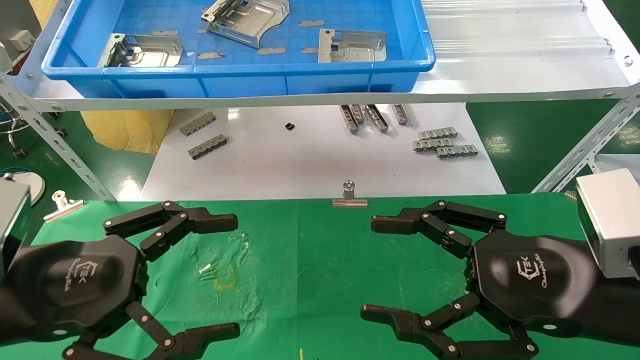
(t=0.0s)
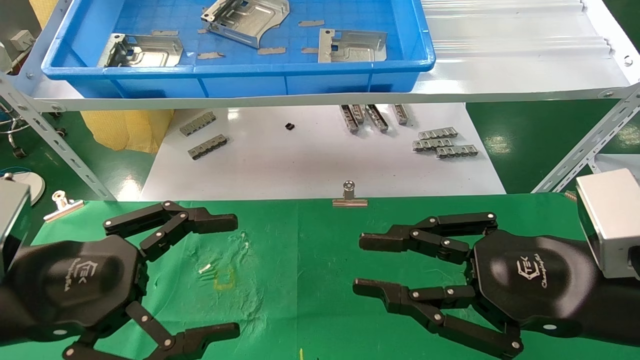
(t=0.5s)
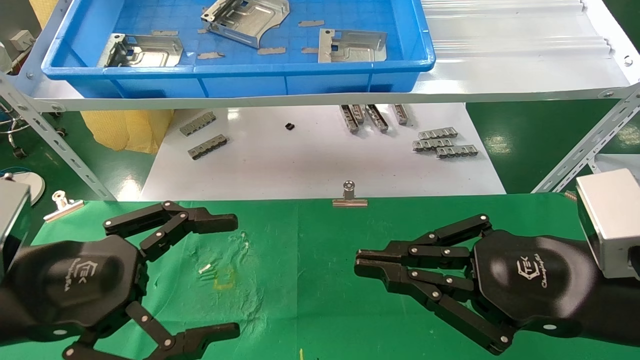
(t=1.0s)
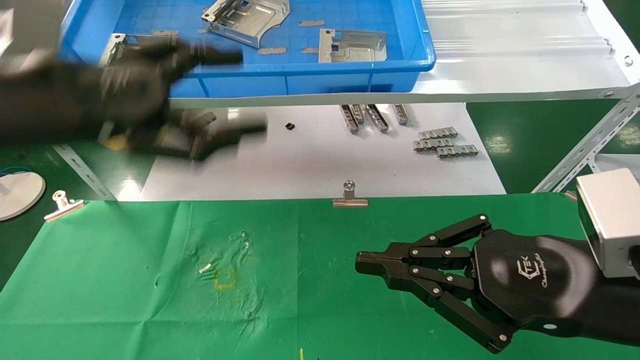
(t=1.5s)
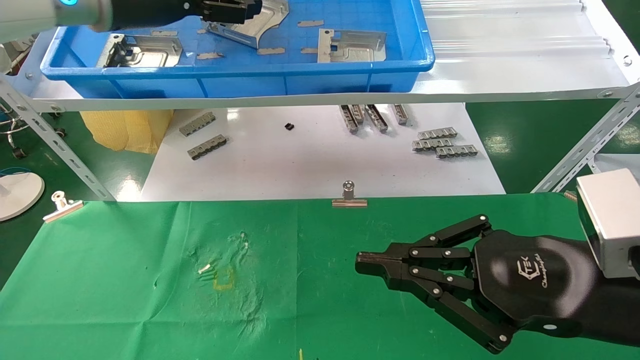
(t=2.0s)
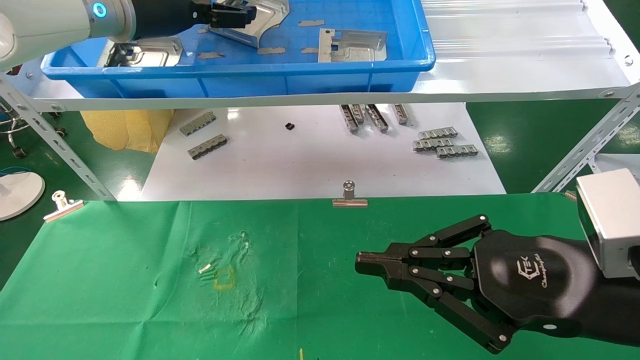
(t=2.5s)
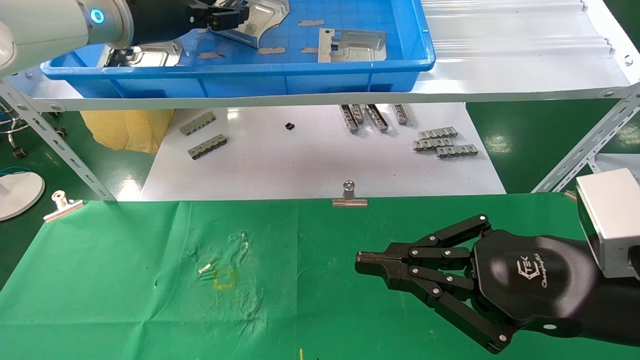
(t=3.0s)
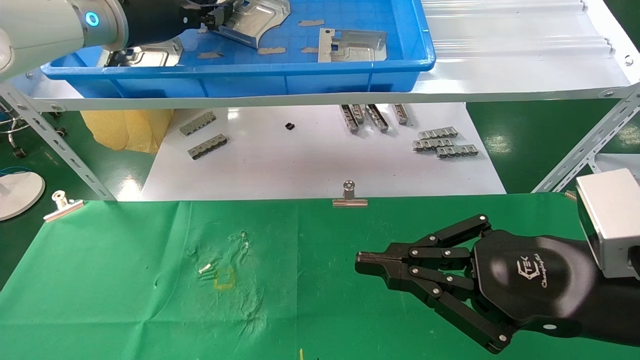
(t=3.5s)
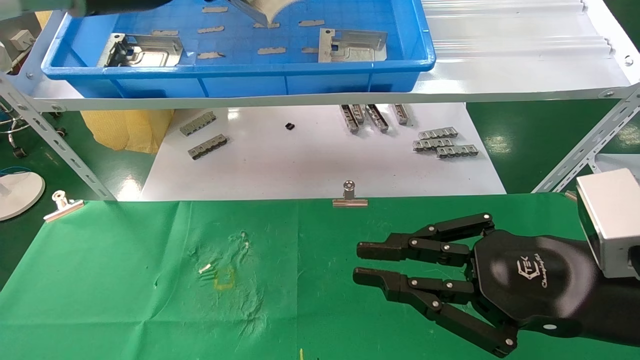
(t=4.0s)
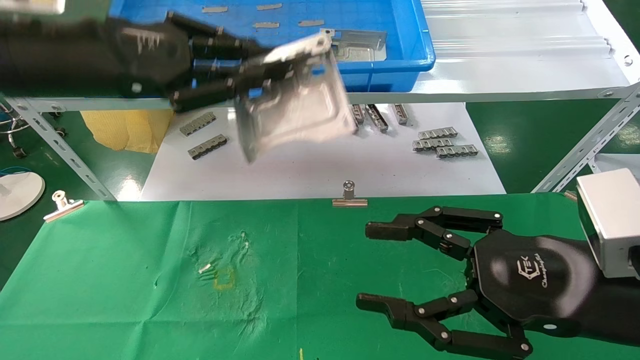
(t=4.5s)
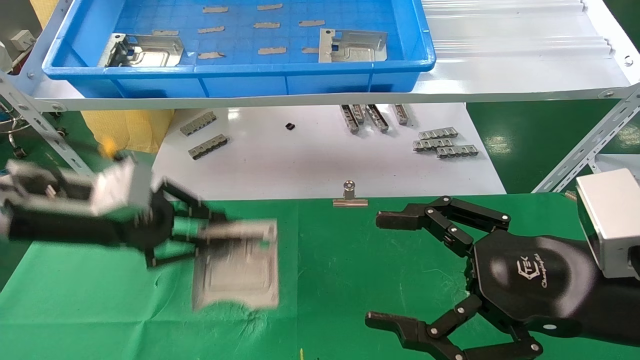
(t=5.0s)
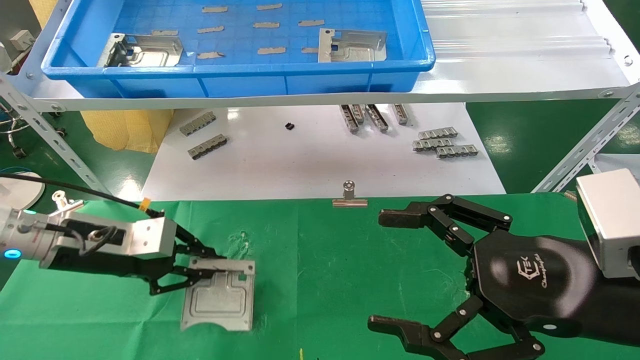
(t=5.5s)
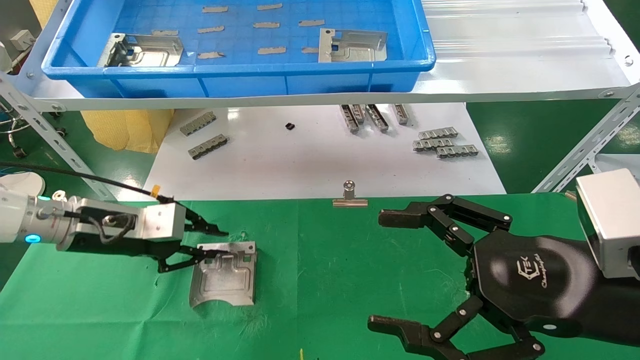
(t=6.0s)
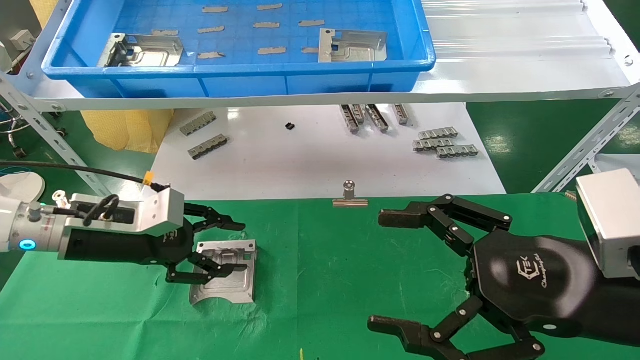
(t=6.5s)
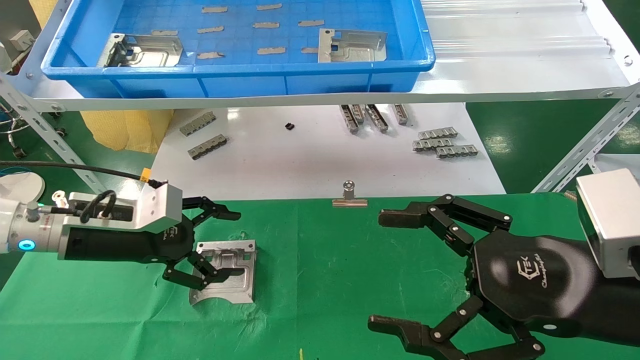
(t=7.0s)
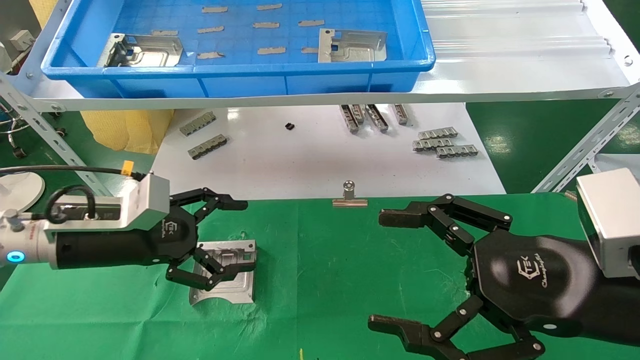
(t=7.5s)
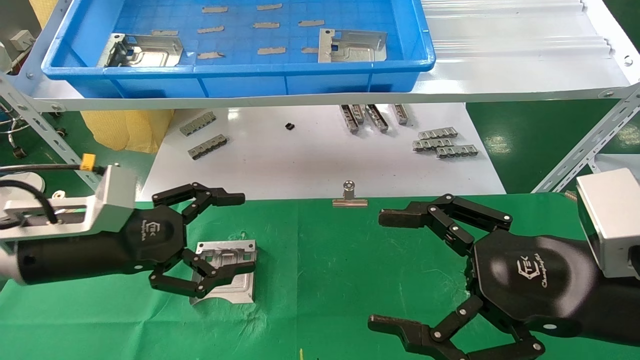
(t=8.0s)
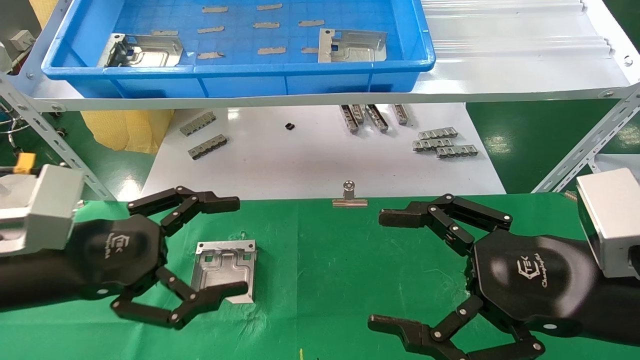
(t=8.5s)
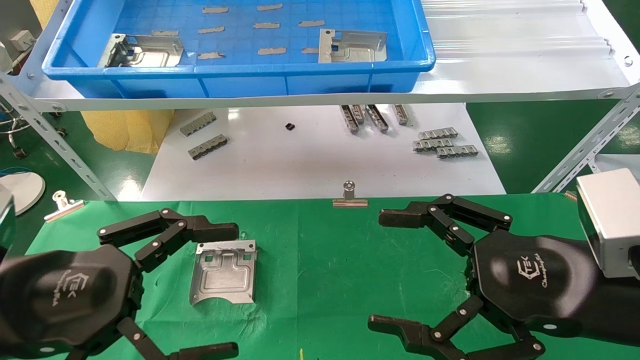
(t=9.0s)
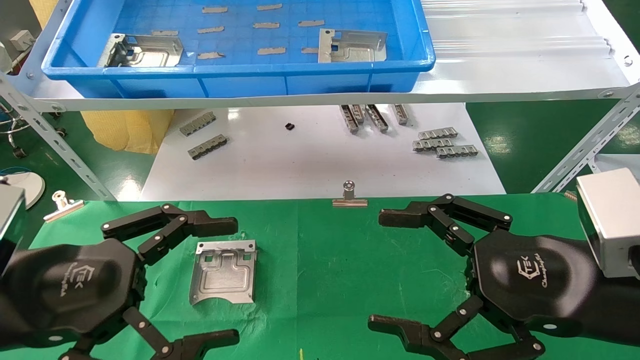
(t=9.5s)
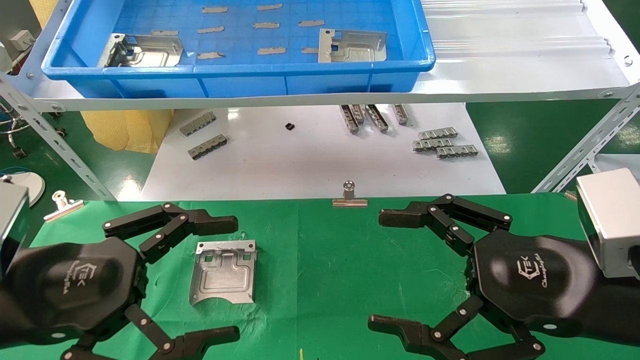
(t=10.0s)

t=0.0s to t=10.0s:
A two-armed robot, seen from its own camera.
Task of the whole recording: use the mechanical arm to pick up the parts and place them on the table.
Step, t=1.5s to t=3.5s: Pick up the hard drive bracket from the feeding area.
Step, t=4.0s to t=6.0s: Place the hard drive bracket into the box.
t=0.0s to t=2.0s: The right gripper closes up. Meanwhile the left gripper is displaced upward and forward by some 30 cm.
t=2.0s to t=4.0s: The left gripper closes.
t=4.0s to t=6.0s: The right gripper opens; the left gripper travels downward by about 25 cm.
t=6.0s to t=8.0s: The left gripper is displaced backward by some 10 cm, and opens its fingers.
t=8.0s to t=10.0s: The left gripper is displaced backward by some 10 cm.
